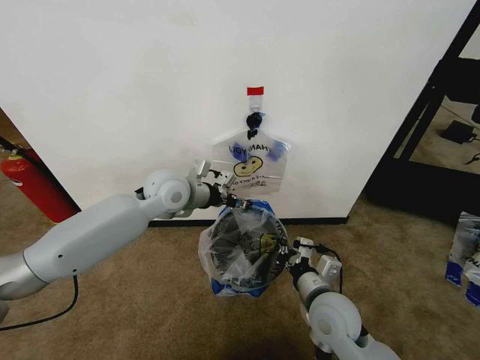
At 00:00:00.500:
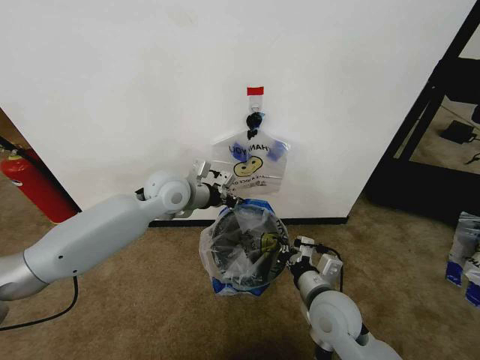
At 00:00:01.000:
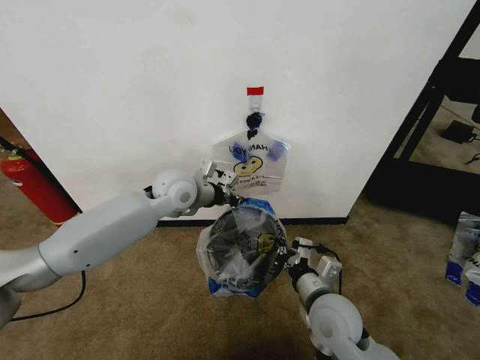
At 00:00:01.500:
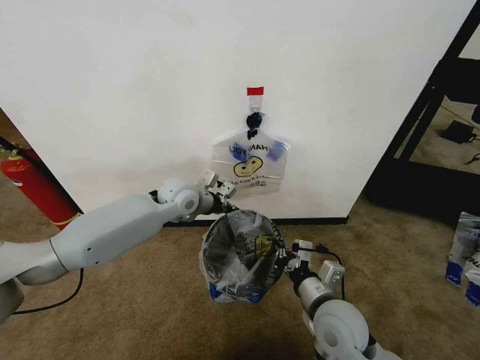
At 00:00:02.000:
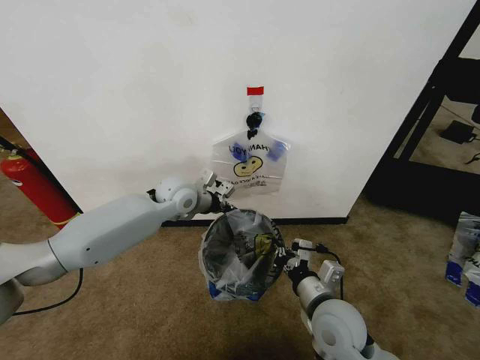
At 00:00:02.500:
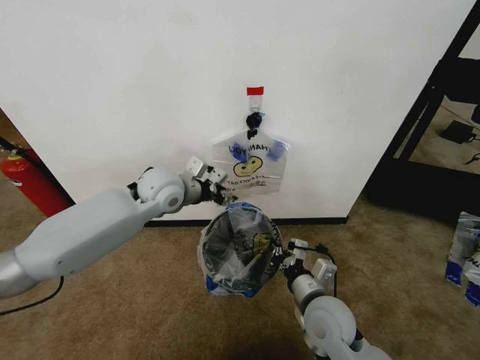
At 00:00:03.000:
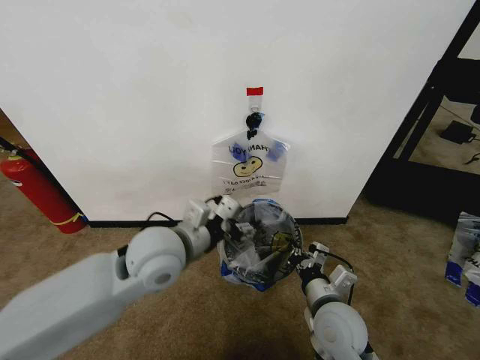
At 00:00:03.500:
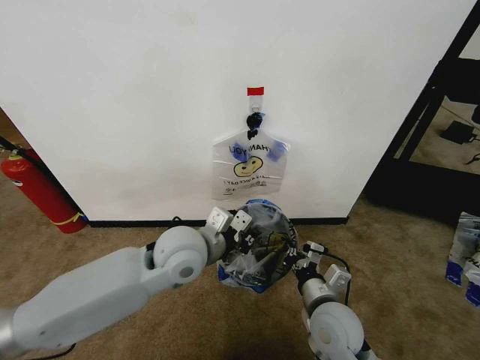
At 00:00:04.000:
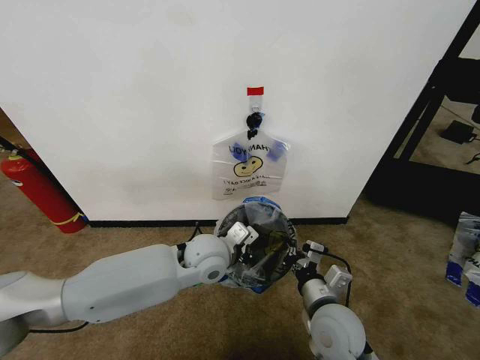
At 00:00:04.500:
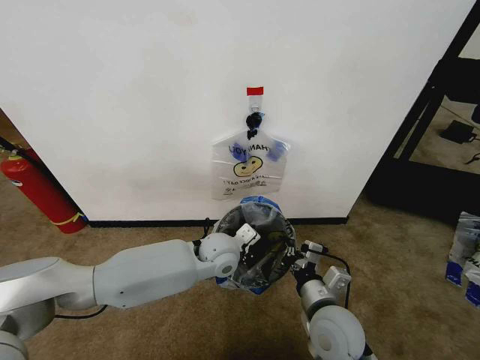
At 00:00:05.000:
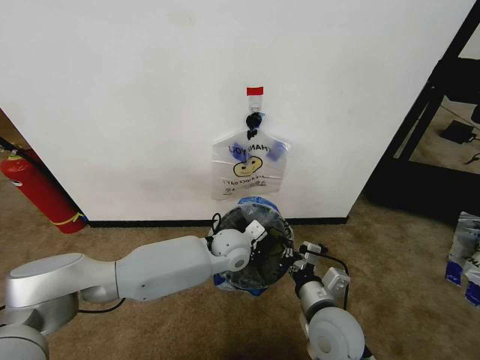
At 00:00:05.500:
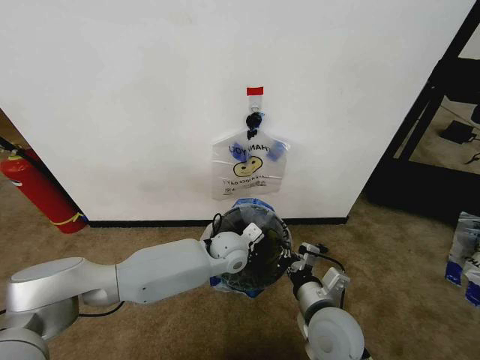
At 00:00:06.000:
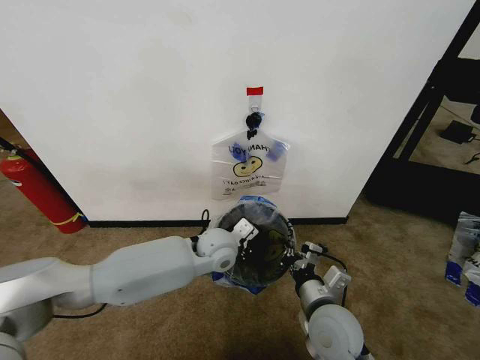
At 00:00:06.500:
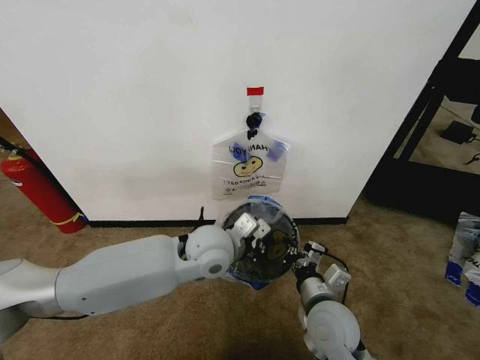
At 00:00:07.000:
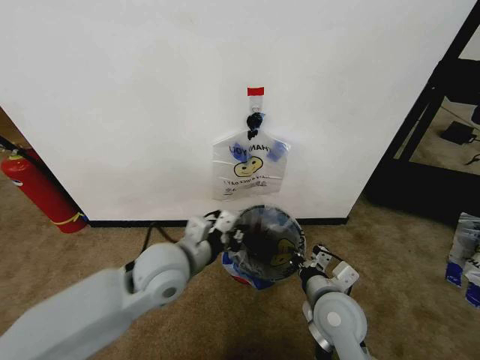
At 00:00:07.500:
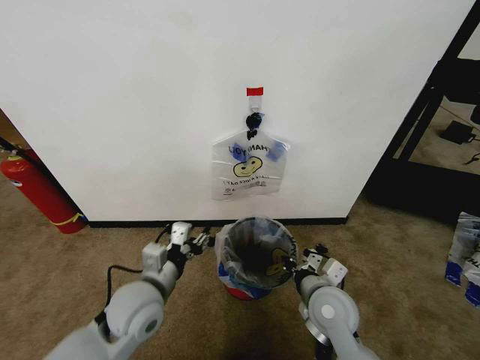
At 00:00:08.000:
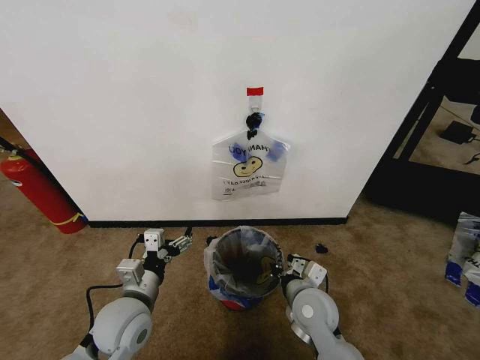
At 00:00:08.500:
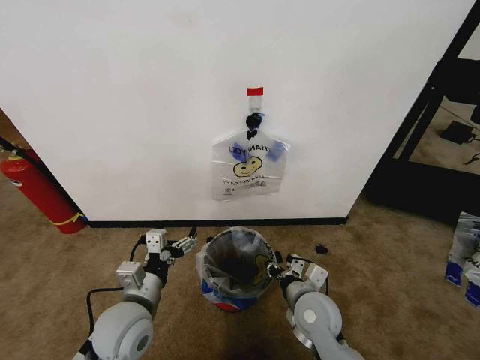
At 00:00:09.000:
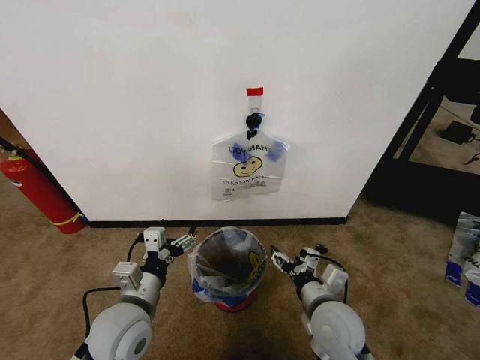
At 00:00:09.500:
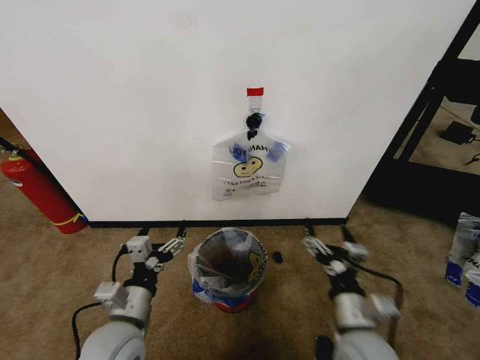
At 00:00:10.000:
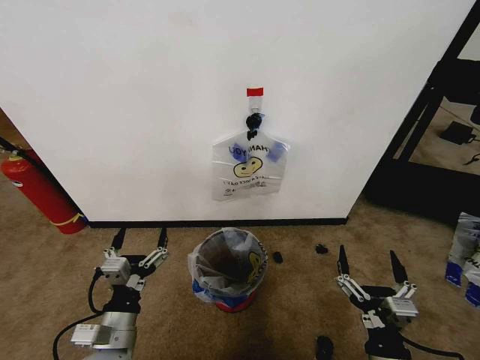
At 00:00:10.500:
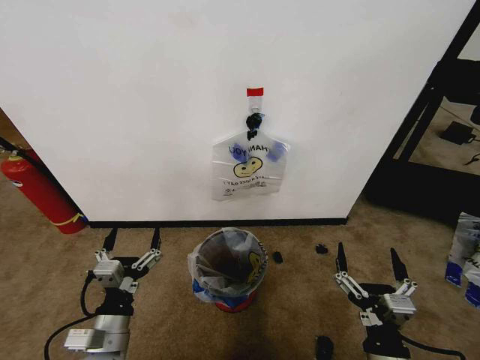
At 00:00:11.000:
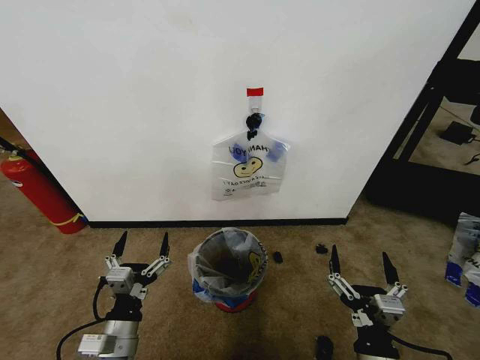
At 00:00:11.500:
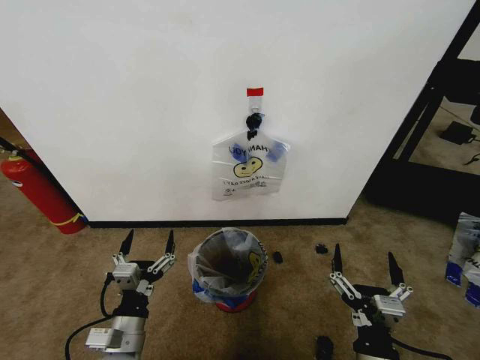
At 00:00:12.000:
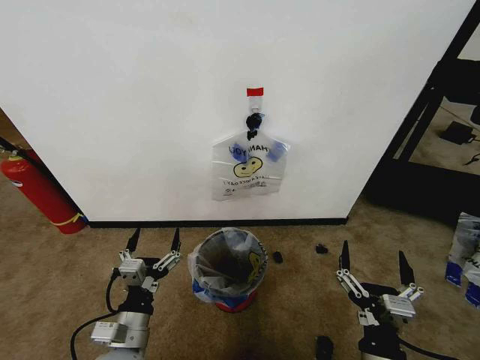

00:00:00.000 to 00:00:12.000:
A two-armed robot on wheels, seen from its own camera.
Task of the whole recording: Pick up the garbage bag from the wall and place it over the trash bin.
00:00:00.000 to 00:00:02.000: The left gripper moves approximately 5 cm, and closes.
00:00:02.000 to 00:00:04.000: The left gripper shifts approximately 15 cm backward and to the right, and opens, then closes once more.
00:00:06.000 to 00:00:08.000: The right gripper shifts by roughly 5 cm. Meanwhile the left gripper shifts about 25 cm to the left and backward, and opens its fingers.
00:00:08.000 to 00:00:10.000: The left gripper heads backward, covering some 10 cm. Meanwhile the right gripper moves backward and to the right, approximately 20 cm, and opens up.
00:00:10.000 to 00:00:12.000: The grippers move only a little.
